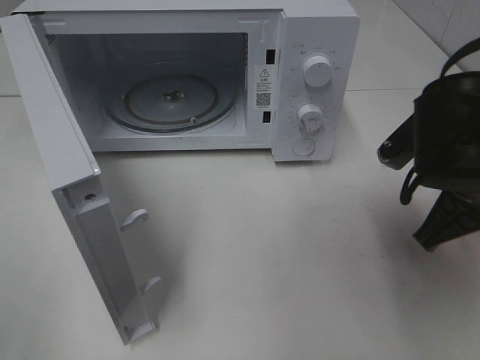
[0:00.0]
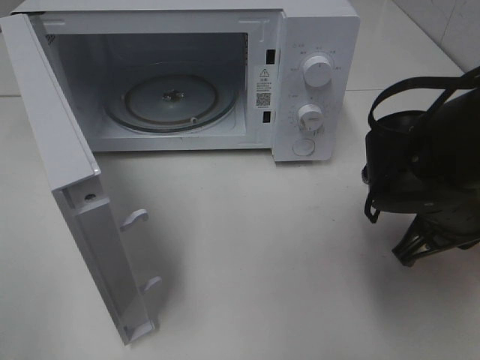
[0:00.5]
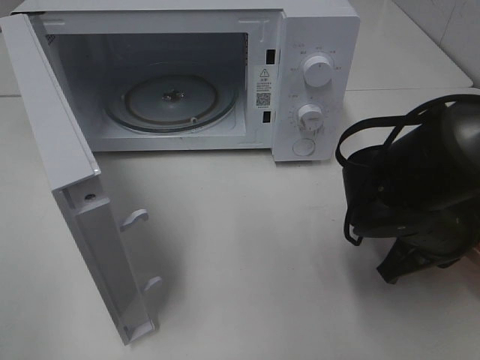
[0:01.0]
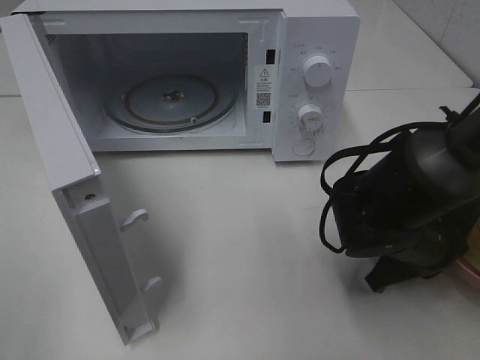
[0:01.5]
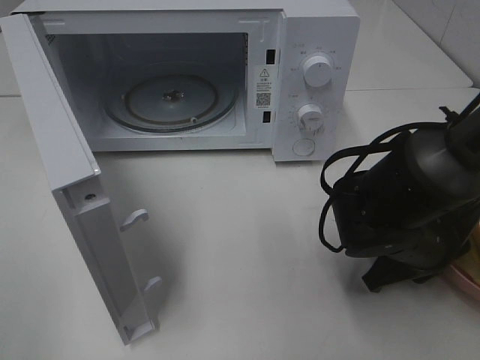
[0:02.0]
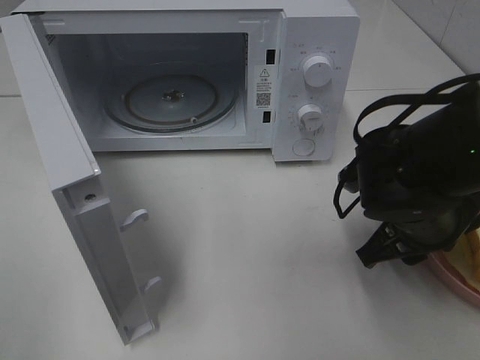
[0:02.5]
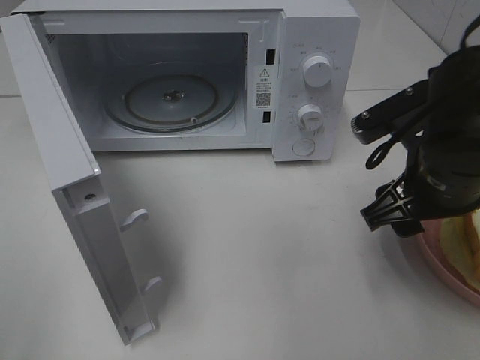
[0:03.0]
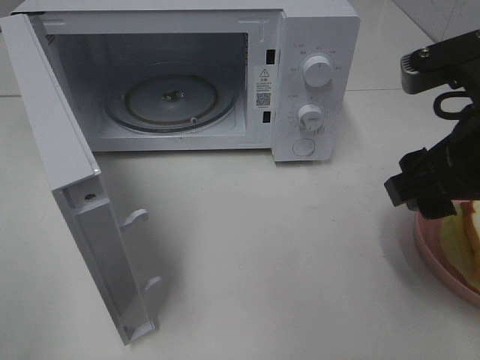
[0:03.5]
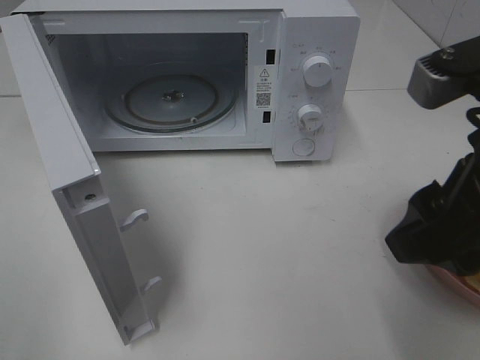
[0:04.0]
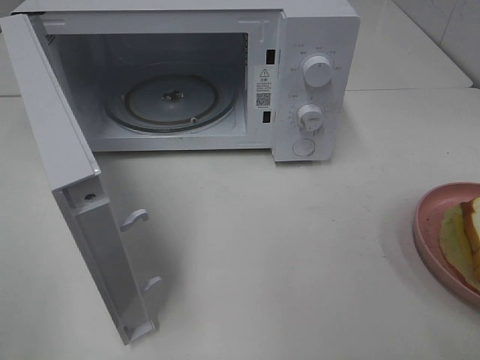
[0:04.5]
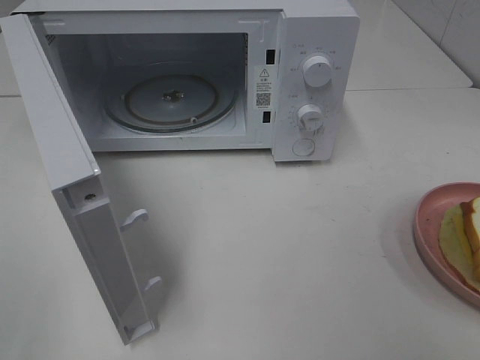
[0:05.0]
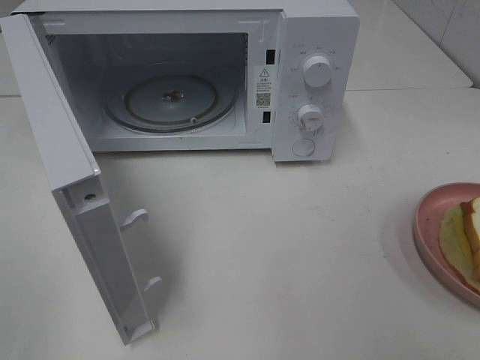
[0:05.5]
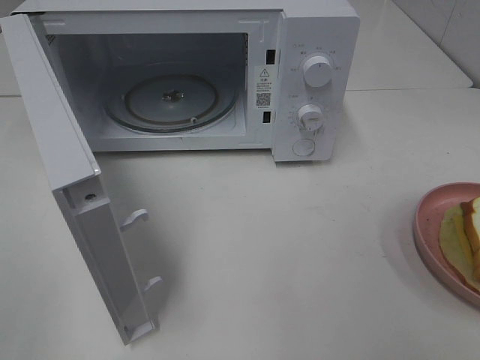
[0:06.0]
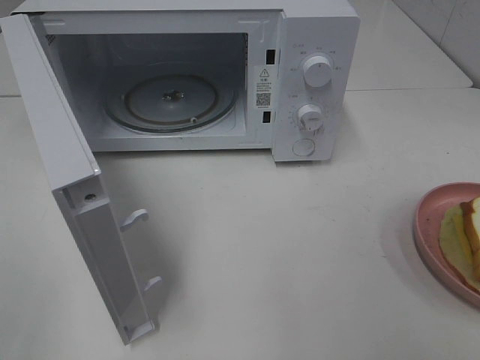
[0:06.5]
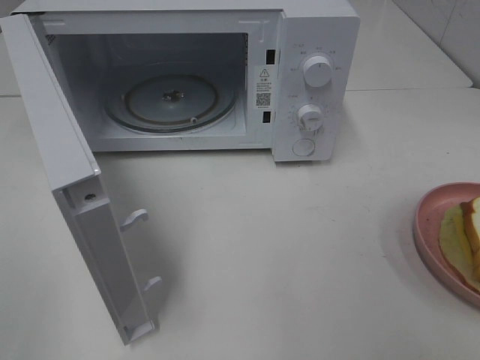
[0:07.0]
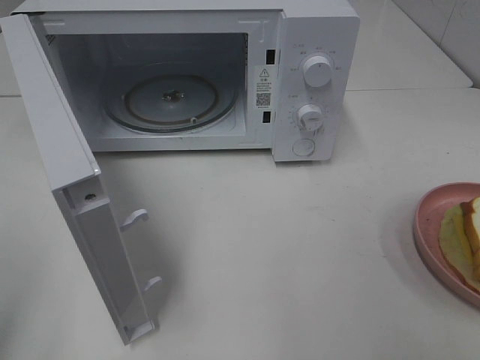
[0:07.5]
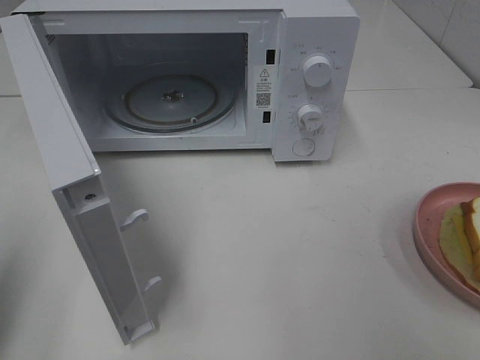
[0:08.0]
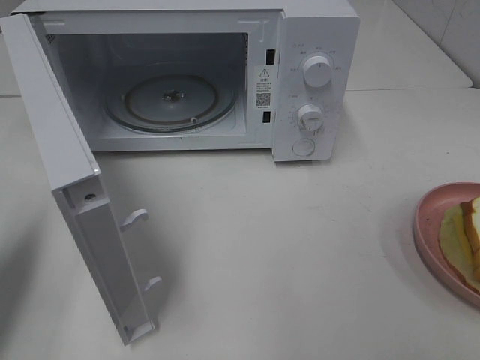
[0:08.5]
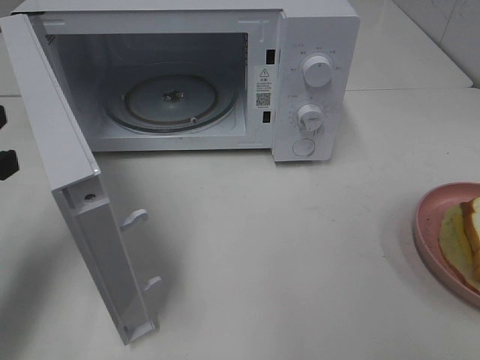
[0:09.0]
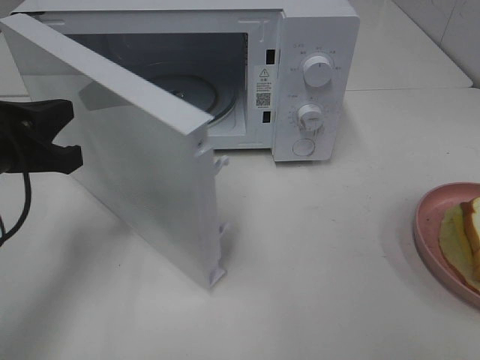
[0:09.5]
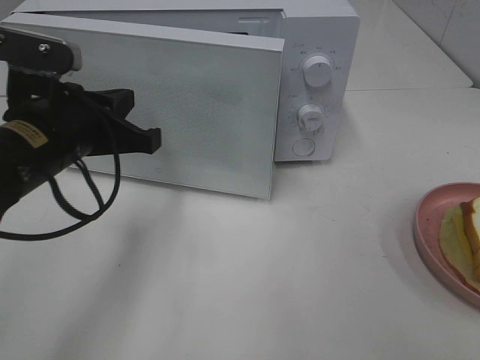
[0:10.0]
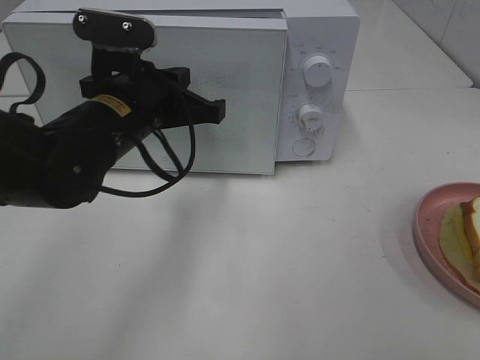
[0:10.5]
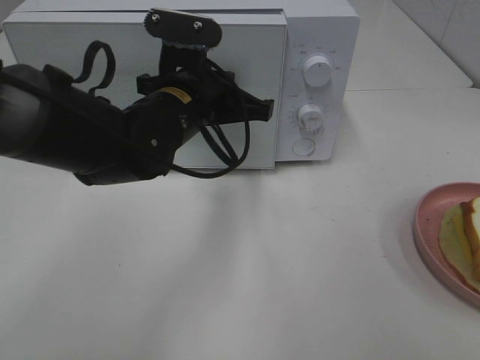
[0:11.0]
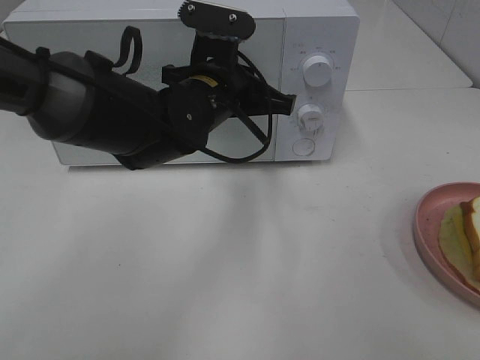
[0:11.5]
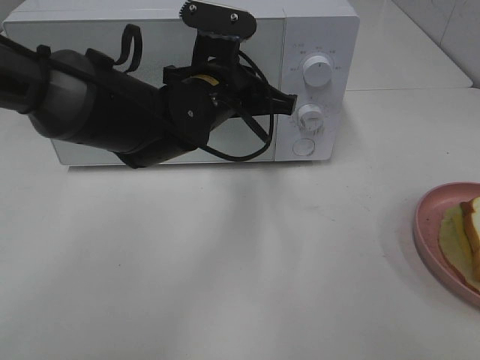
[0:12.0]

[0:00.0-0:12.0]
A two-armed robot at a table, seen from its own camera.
Task of the whole recording: Heat Sandwich.
Step, 0:00.0 to 0:03.5: Right hand: place the plate on the table.
0:00.0 to 0:02.0: The right gripper travels downward by some 10 cm.
0:02.0 to 0:04.0: The right gripper heads upward and backward, covering approximately 25 cm, and opens its fingers.
0:04.0 to 0:06.0: The right gripper goes approximately 20 cm backward and to the right.
0:06.0 to 0:08.0: The left gripper heads forward, covering approximately 10 cm, and closes.
0:08.0 to 0:10.0: The left gripper is displaced to the right, forward and downward by roughly 25 cm.
0:10.0 to 0:12.0: The left gripper goes about 15 cm to the right and forward.

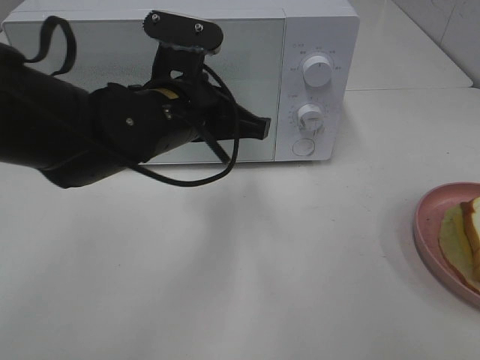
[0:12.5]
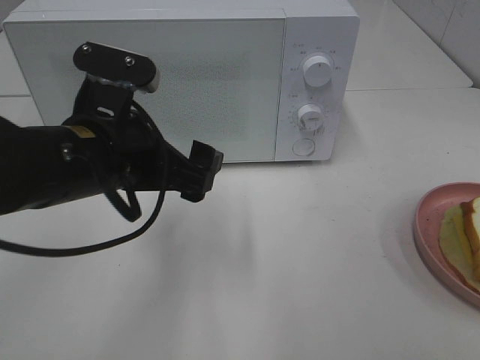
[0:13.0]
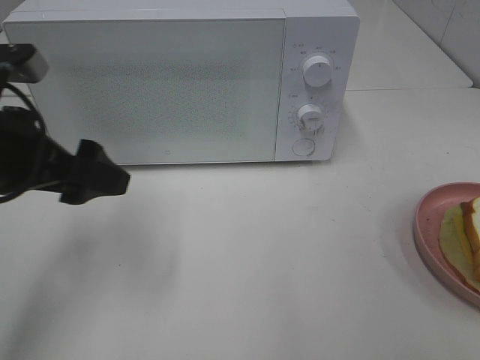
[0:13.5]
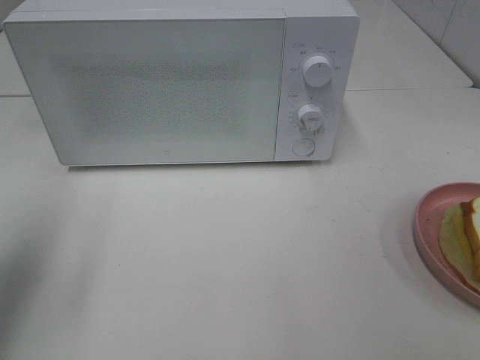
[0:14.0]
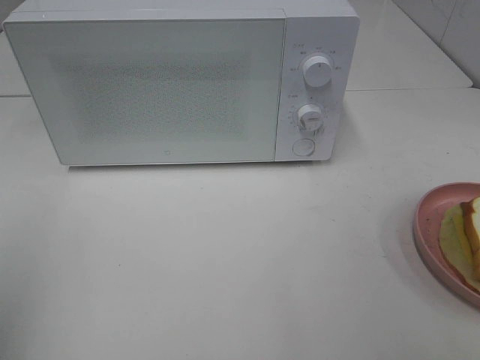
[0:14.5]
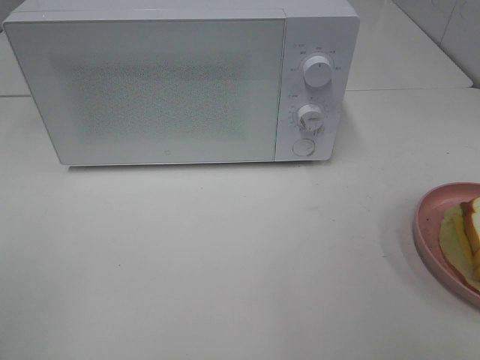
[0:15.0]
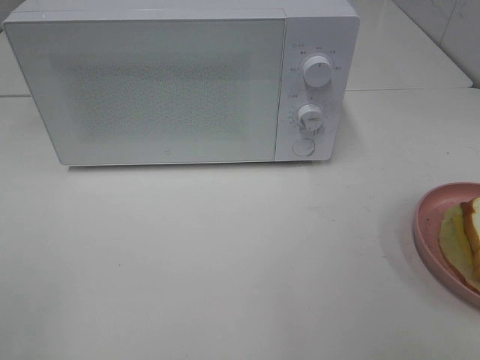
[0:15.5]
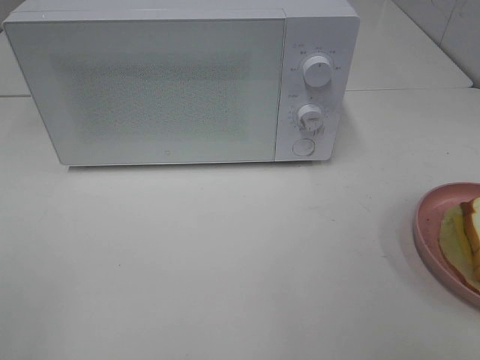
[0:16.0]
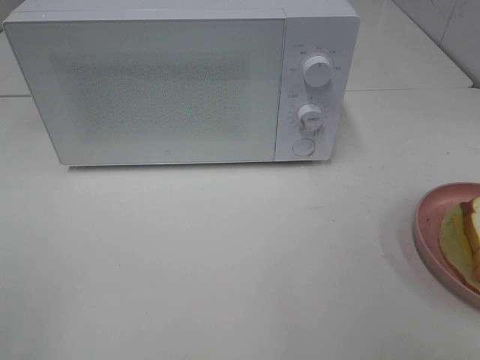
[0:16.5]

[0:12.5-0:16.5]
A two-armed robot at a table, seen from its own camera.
Task of the whole recording: Heat Sandwich.
0:12.5 to 0:14.5: The left gripper shifts about 35 cm to the left, backward and upward, and opens its fingers.

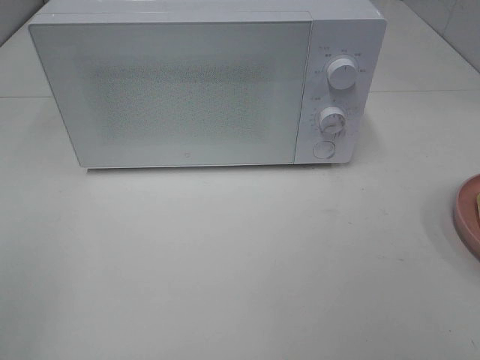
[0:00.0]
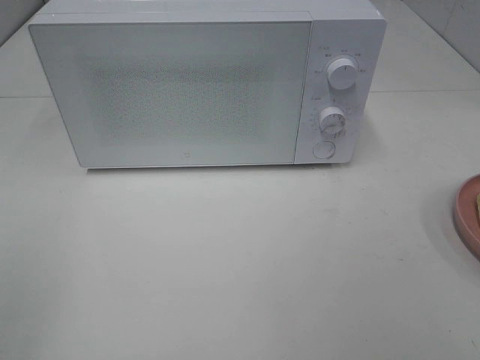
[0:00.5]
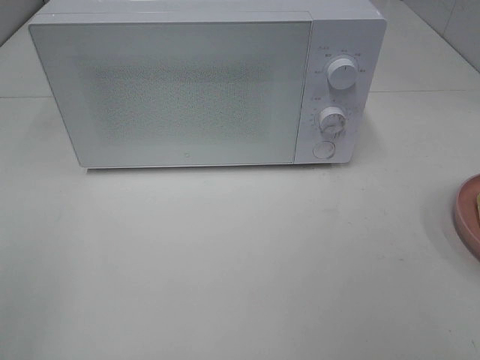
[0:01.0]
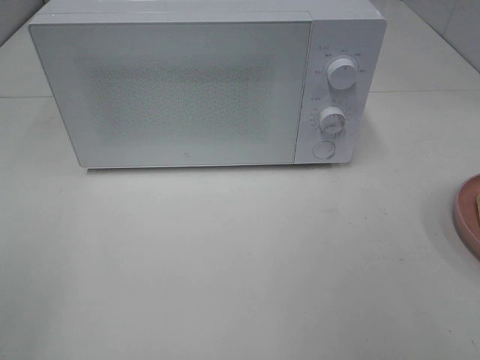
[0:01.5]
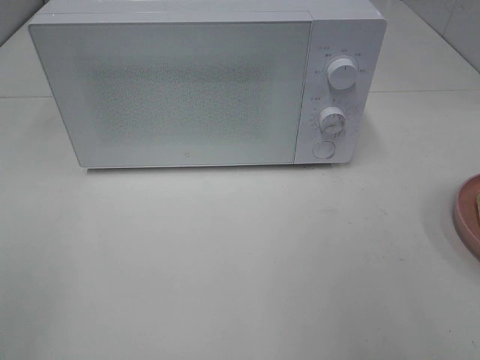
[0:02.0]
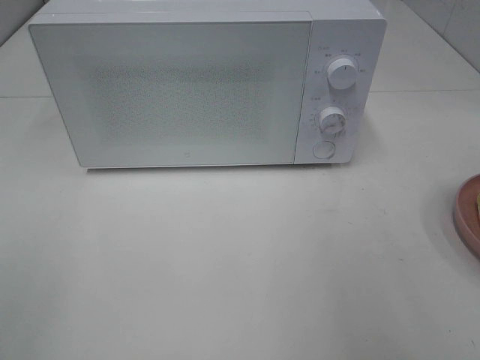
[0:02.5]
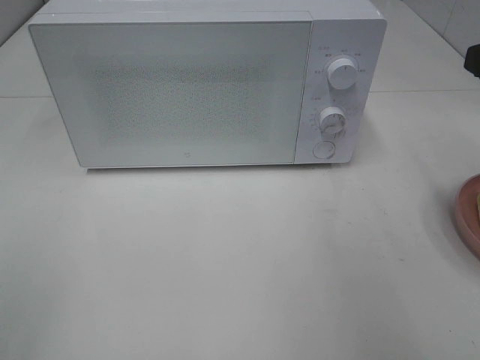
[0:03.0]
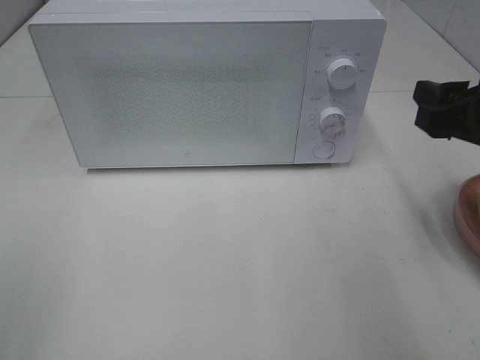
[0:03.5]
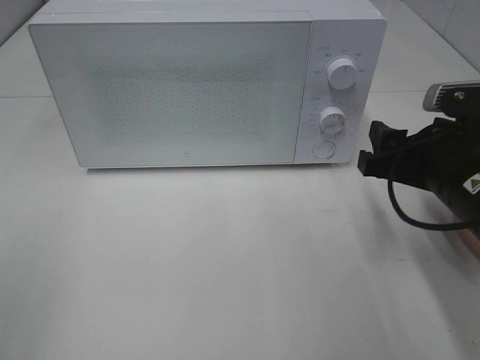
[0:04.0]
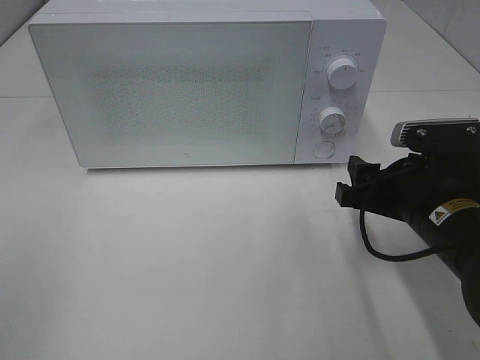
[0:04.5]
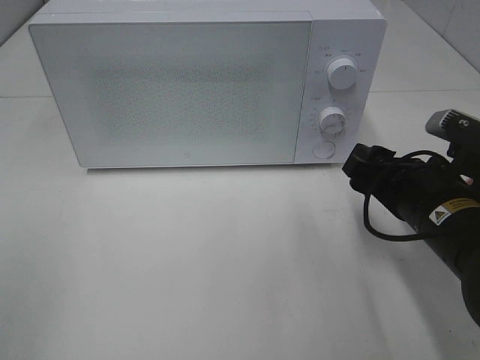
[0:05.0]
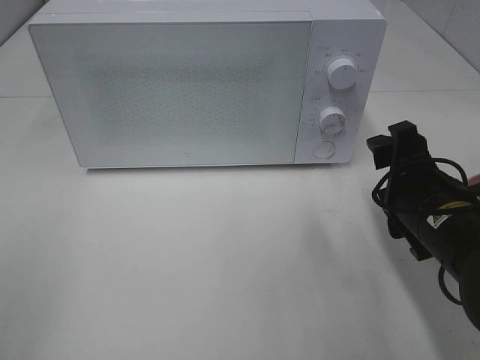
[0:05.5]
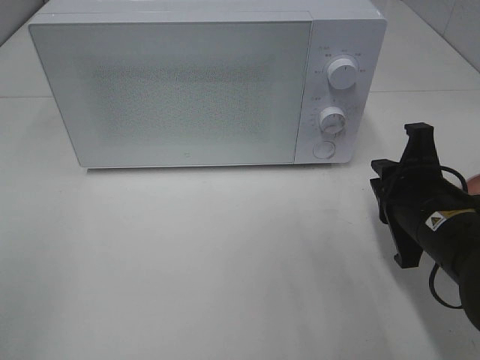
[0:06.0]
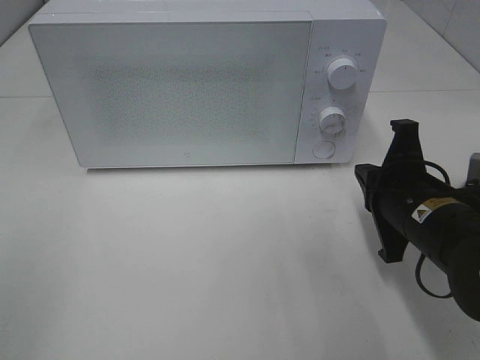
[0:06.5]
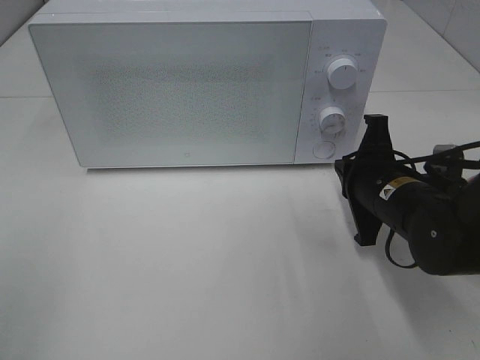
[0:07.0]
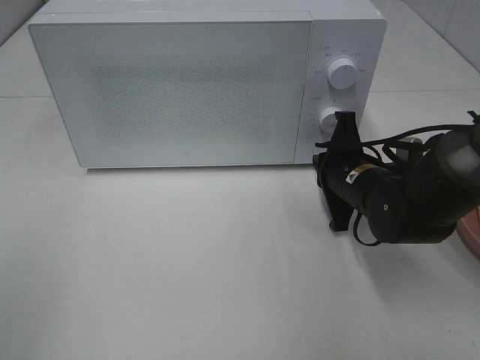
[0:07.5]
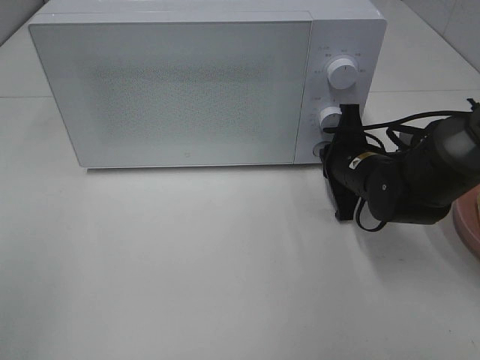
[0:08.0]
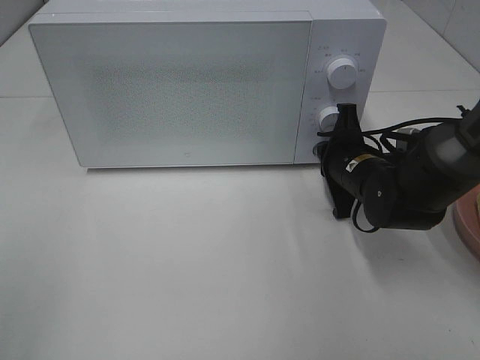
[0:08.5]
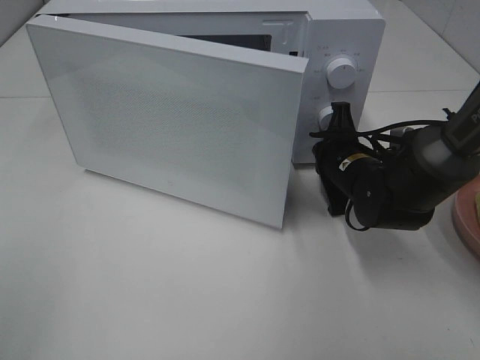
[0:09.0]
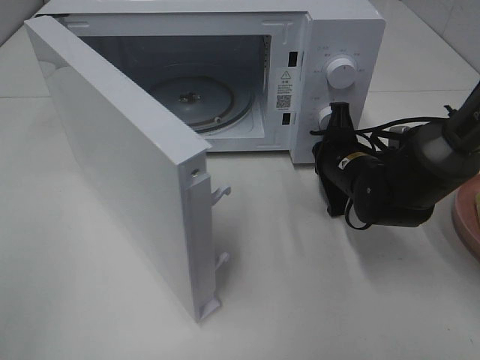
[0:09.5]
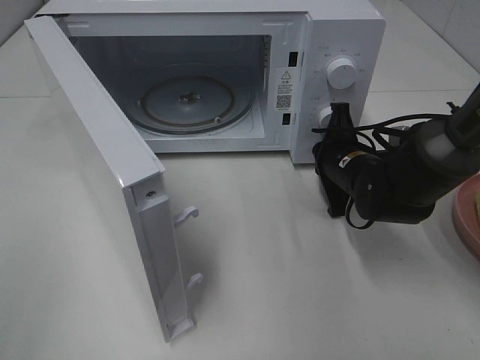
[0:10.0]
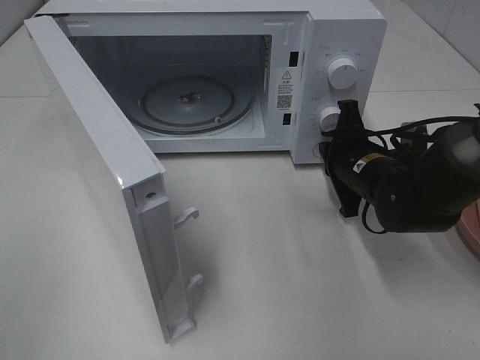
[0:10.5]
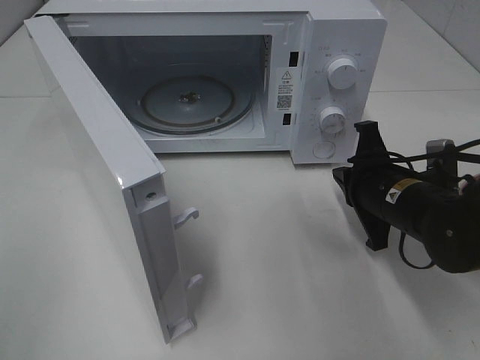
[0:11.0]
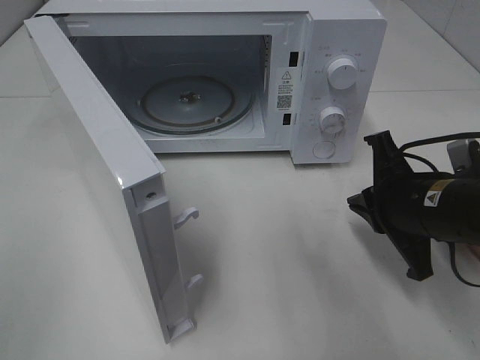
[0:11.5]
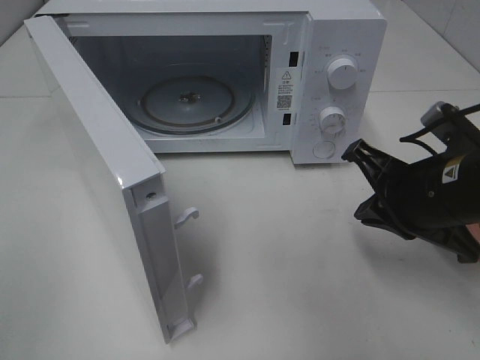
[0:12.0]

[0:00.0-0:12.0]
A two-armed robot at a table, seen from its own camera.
Task of the whole recording: Heat Sandwich.
Step, 0:00.0 to 0:10.5: Right hand: press the switch.
0:02.0 to 0:04.0: The right gripper is displaced downward, forward and to the left by about 20 cm.
0:04.0 to 0:06.0: The right gripper closes up.
0:06.0 to 0:08.0: The right gripper shifts about 10 cm forward.
0:10.0 to 0:12.0: The right gripper moves backward and upward, some 15 cm.
